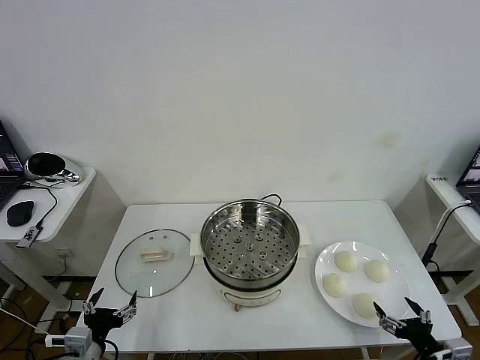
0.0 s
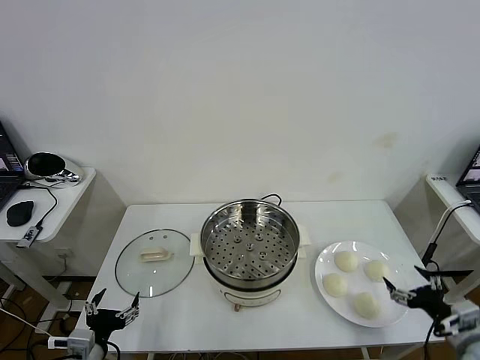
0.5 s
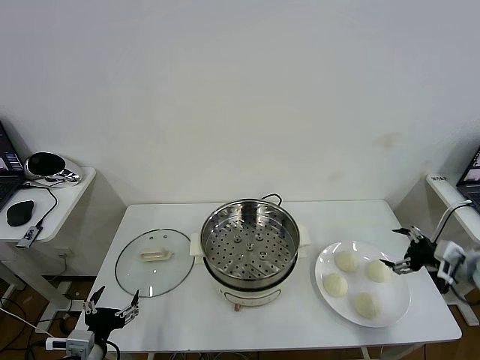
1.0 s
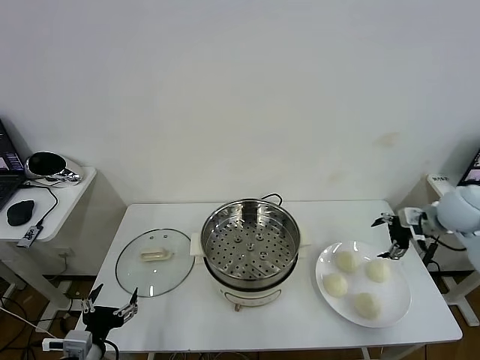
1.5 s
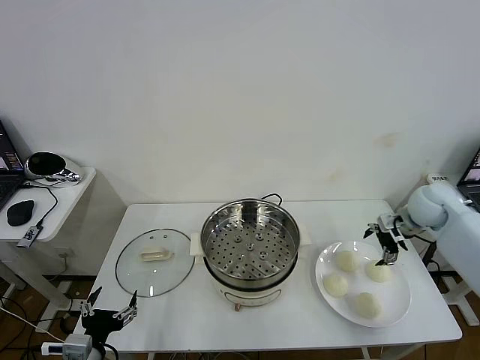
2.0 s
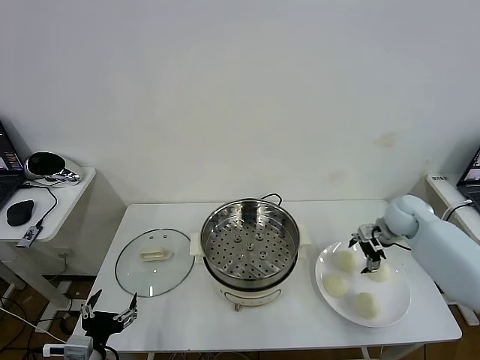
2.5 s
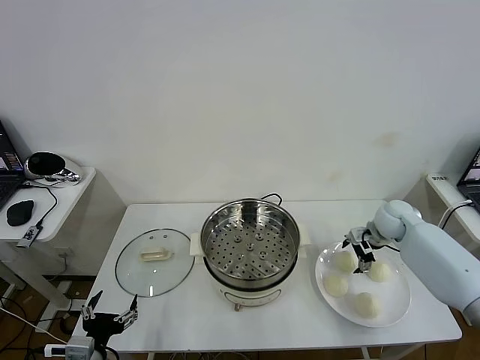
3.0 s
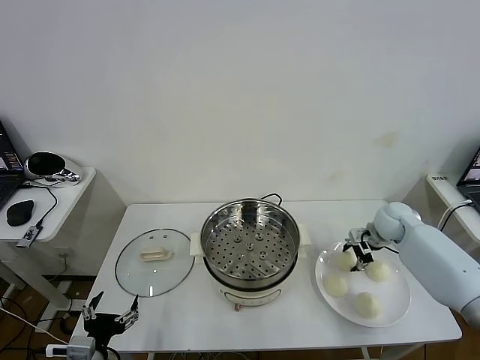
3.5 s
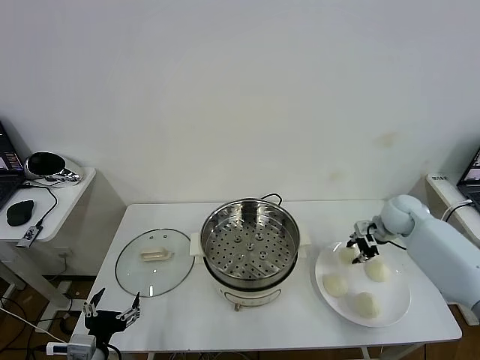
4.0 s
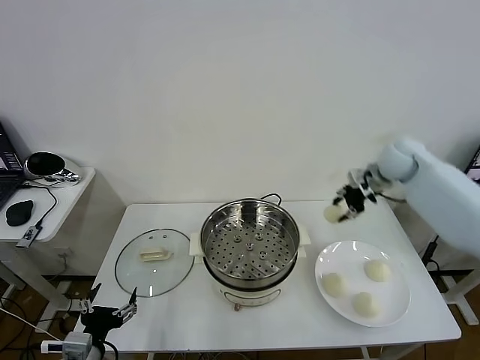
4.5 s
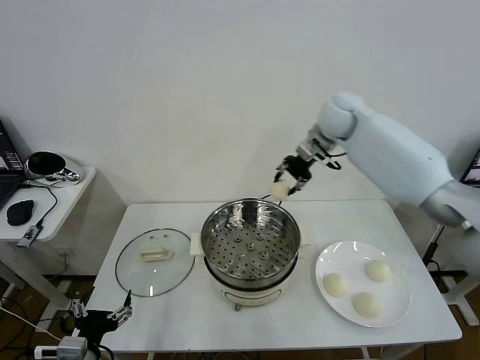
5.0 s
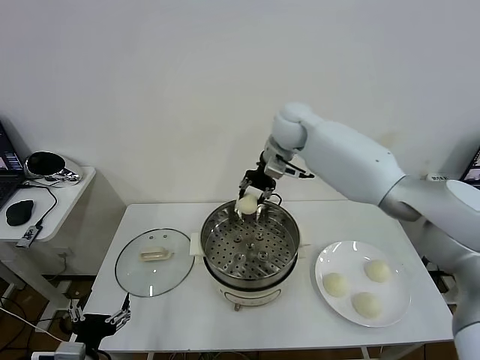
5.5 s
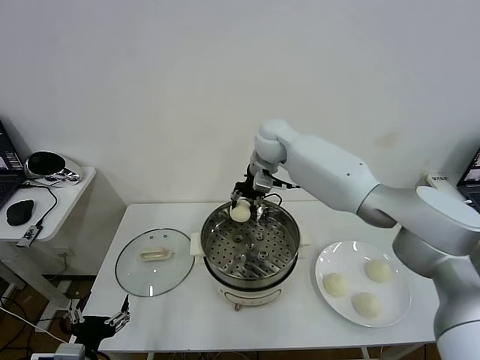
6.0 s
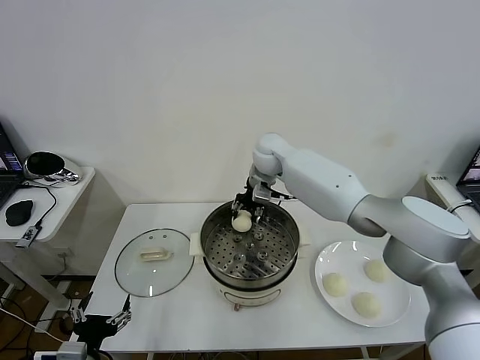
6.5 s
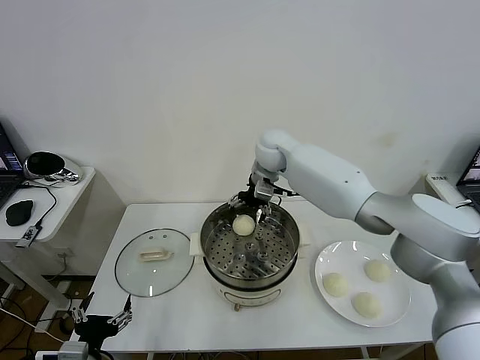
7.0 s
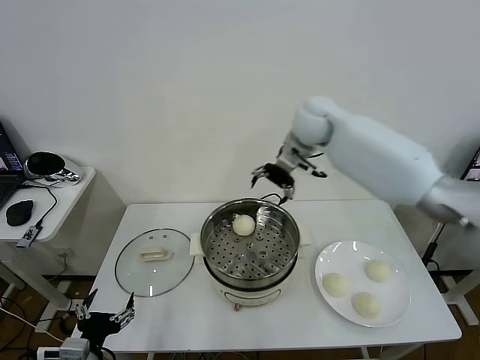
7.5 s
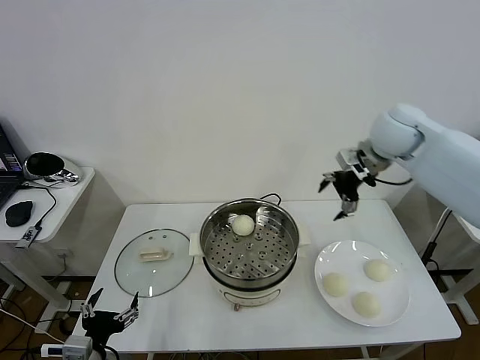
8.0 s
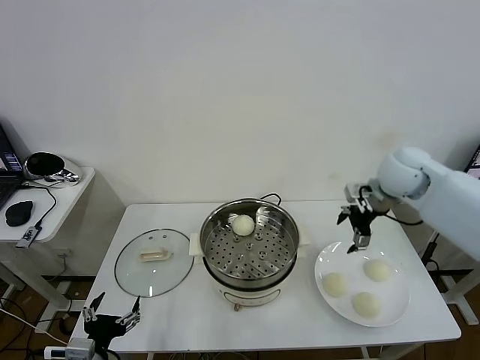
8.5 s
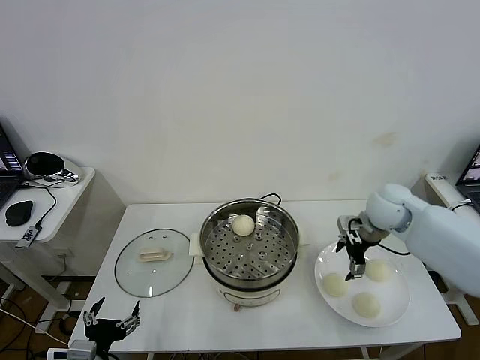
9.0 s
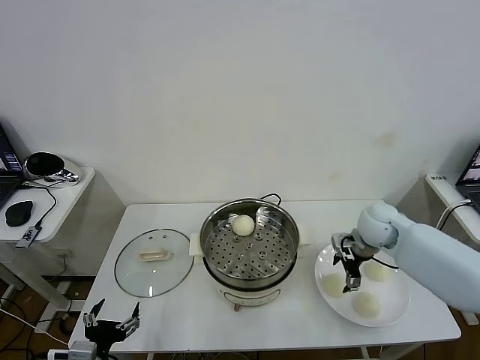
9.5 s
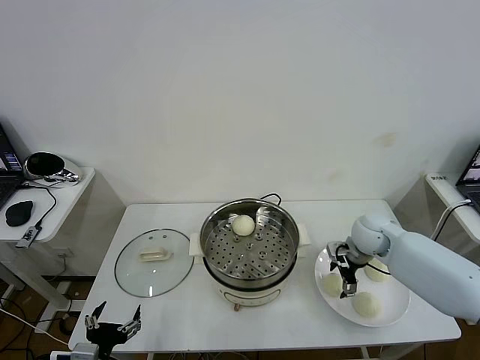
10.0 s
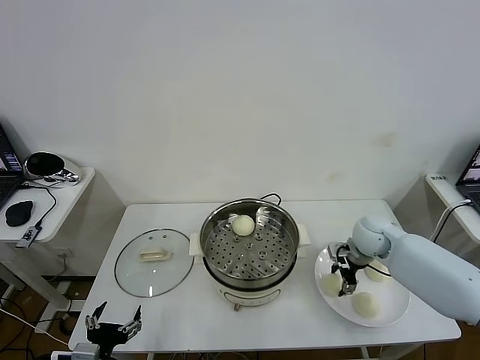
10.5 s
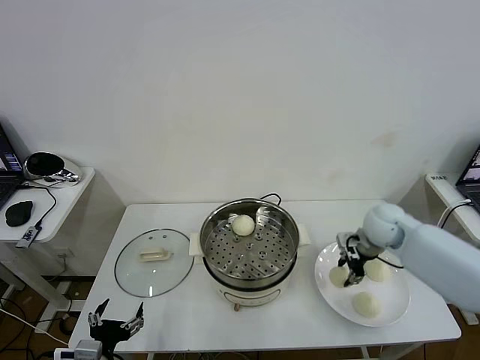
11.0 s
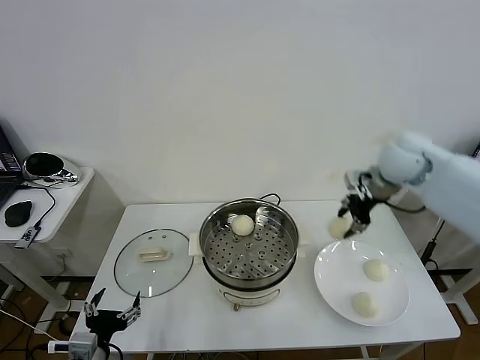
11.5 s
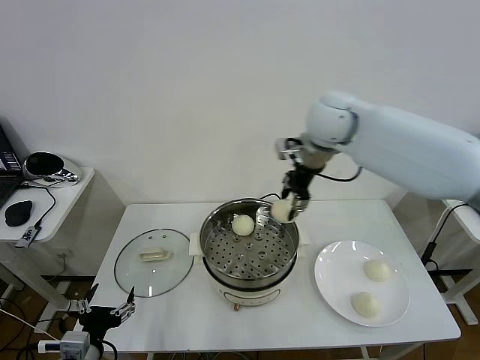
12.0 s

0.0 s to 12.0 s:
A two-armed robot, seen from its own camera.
Task of the whole recording: take steamed baozi put them in steamer then cover it.
Step, 0.0 to 3.5 s: Grasp the baozi in the plate with right gripper.
Step, 4.0 to 6.5 s: Place the baozi on the steamer with right gripper.
2.0 to 4.0 s: The right gripper closes its fingers.
4.0 to 6.0 s: The right gripper travels to the left by roughly 35 cm.
6.0 to 8.0 s: The right gripper shifts about 25 cm to the right, and opens.
8.0 to 10.0 s: The right gripper shifts about 25 cm downward.
10.0 to 12.0 s: The right gripper travels upward and to the left by some 30 cm, and closes its fingers.

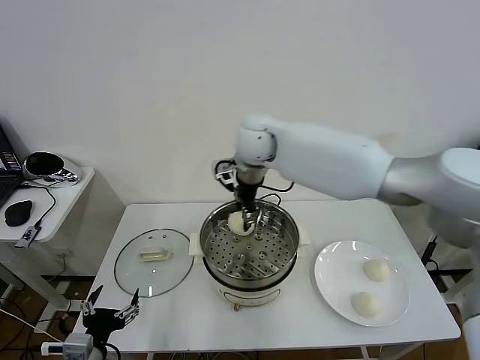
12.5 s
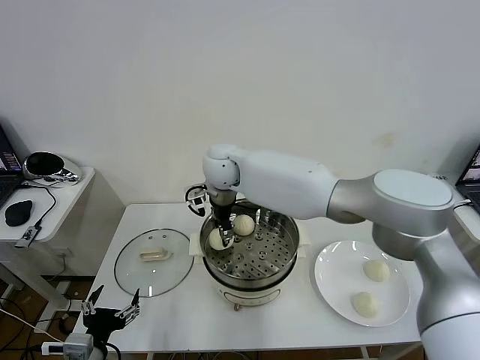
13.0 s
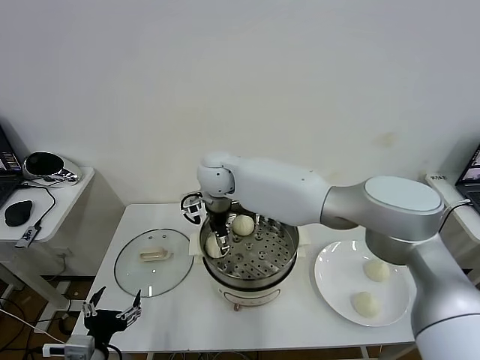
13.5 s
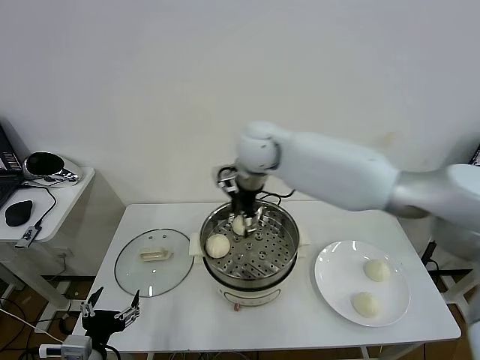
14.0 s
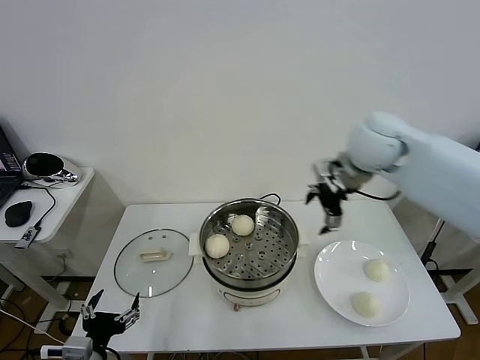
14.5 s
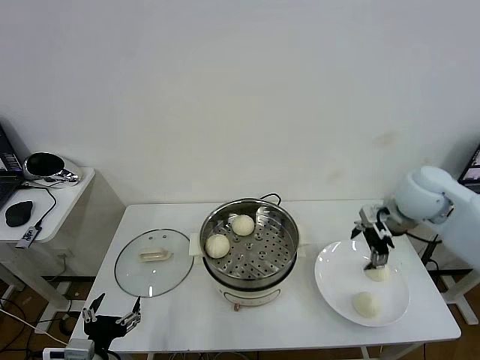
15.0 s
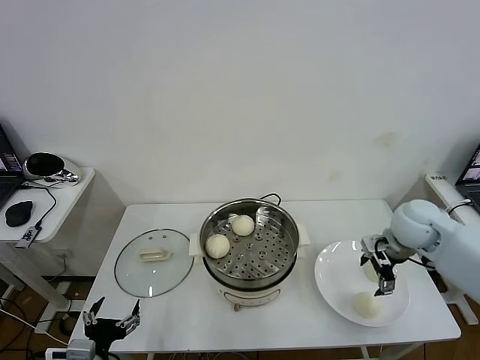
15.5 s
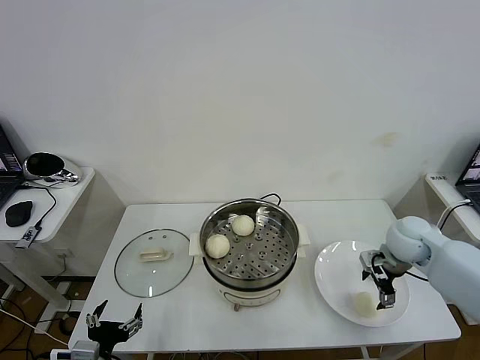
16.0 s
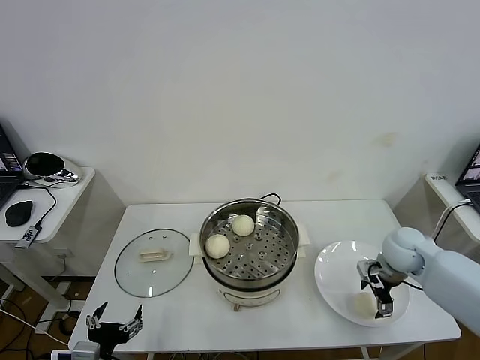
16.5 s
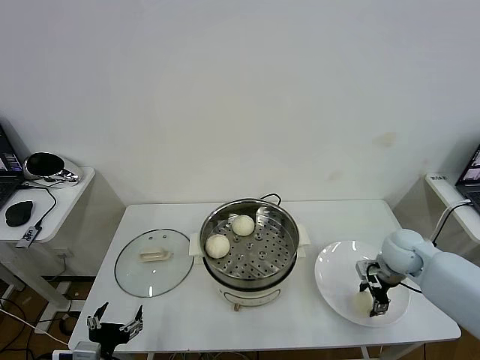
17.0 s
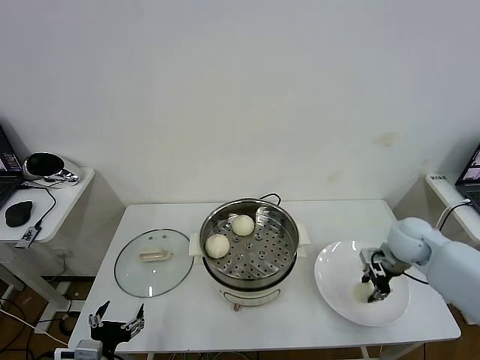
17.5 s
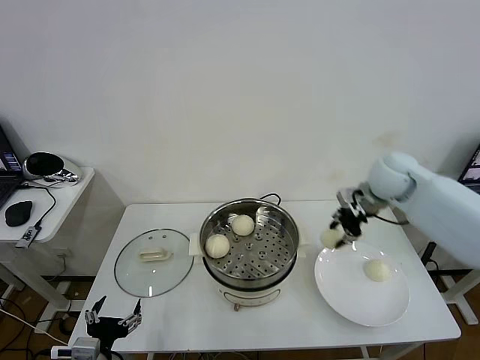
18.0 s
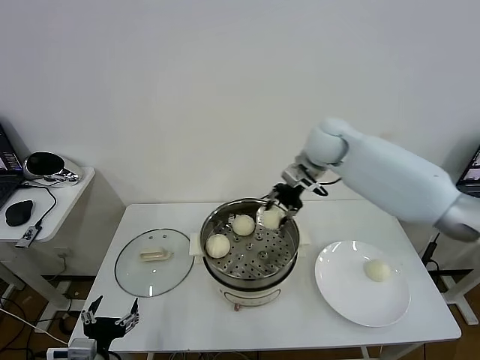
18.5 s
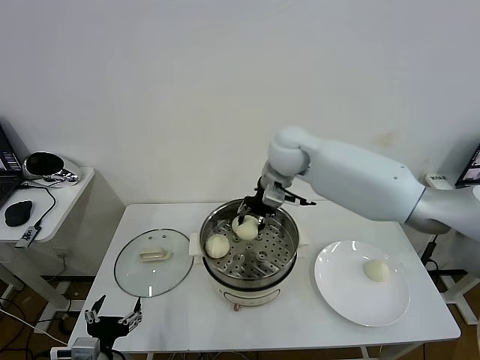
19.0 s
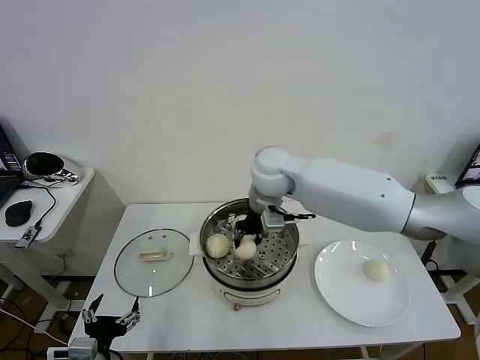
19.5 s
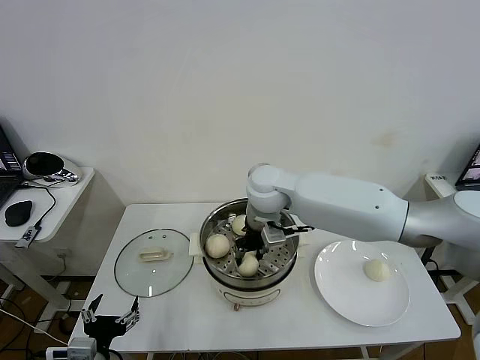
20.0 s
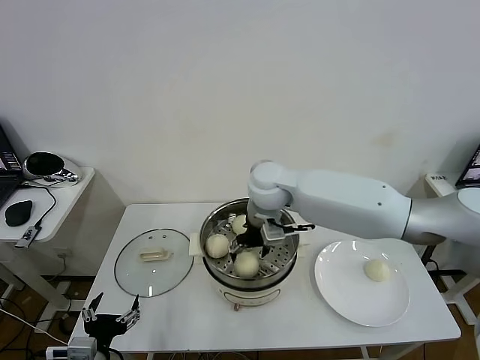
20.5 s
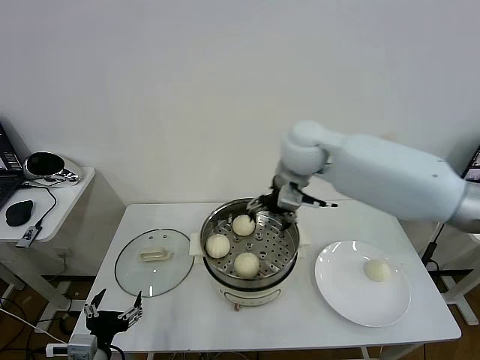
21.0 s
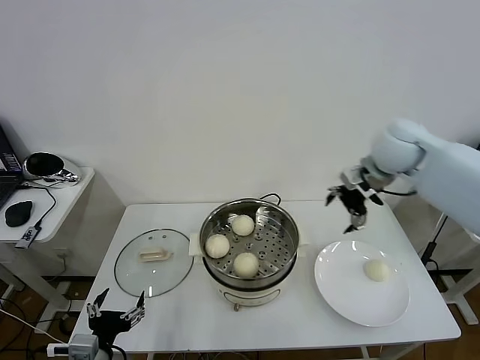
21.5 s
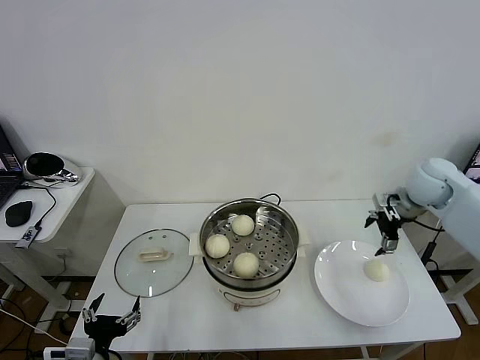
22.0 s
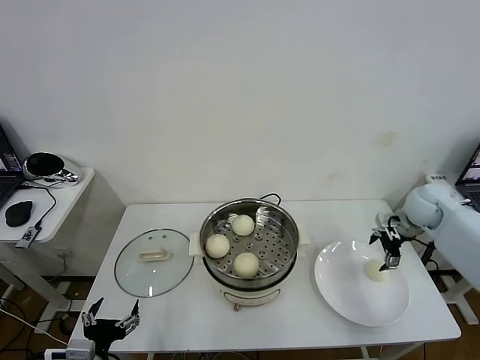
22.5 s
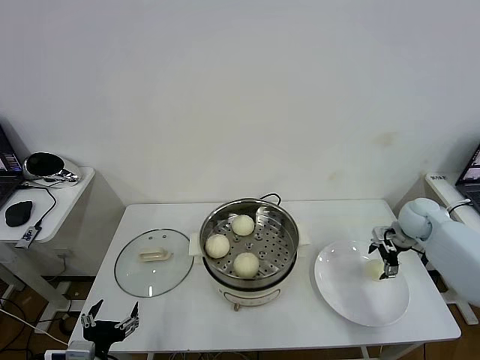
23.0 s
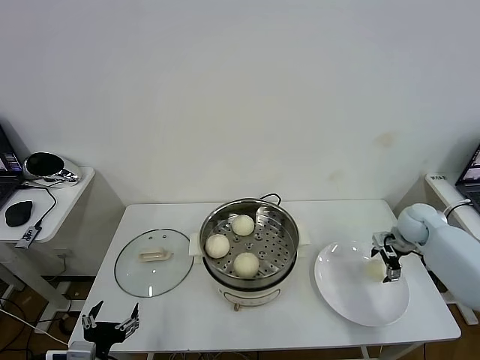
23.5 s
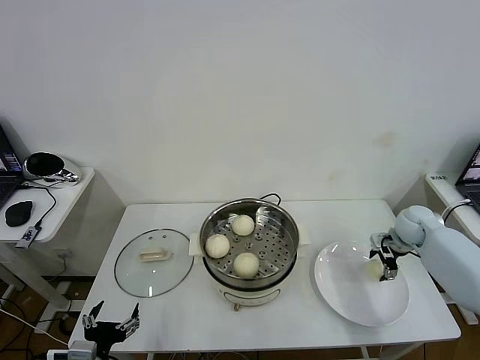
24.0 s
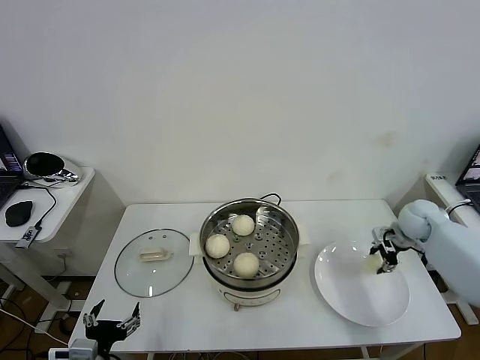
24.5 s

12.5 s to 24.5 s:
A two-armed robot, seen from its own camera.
Task of the whole recording: take steamed baozi put them in steamer then cover it.
Step, 14.0 to 17.0 s: Grasp the baozi in the plate with right gripper.
Step, 17.5 to 20.5 s: Place the baozi on the steamer with right gripper.
Step, 21.0 to 24.0 s: Grasp the baozi in the plate with right gripper.
12.5 to 14.5 s: The right gripper goes approximately 25 cm to the right, and opens up.
14.5 to 16.5 s: The right gripper travels downward and to the right by roughly 25 cm.
16.5 to 18.5 s: The right gripper is displaced to the left, upward and forward by approximately 30 cm, and closes up.
18.5 to 20.5 s: The right gripper shifts approximately 15 cm to the left, backward and downward, and opens up.
20.5 to 22.5 s: The right gripper travels to the right by approximately 40 cm.
22.5 to 24.5 s: The right gripper closes its fingers.

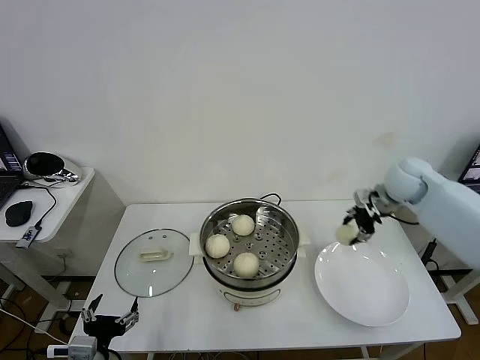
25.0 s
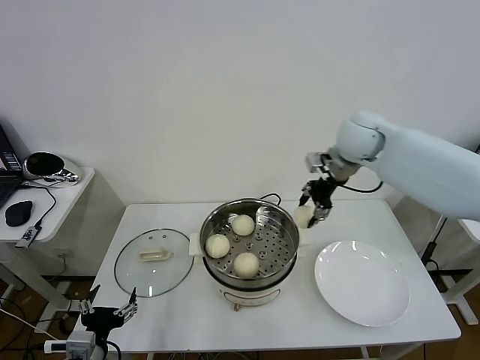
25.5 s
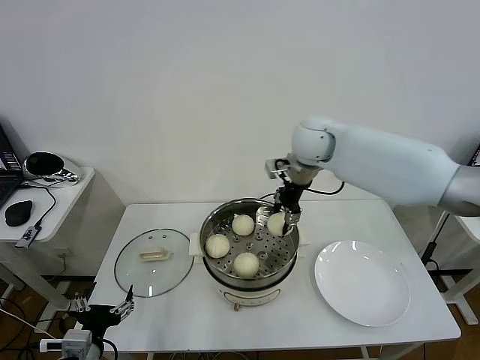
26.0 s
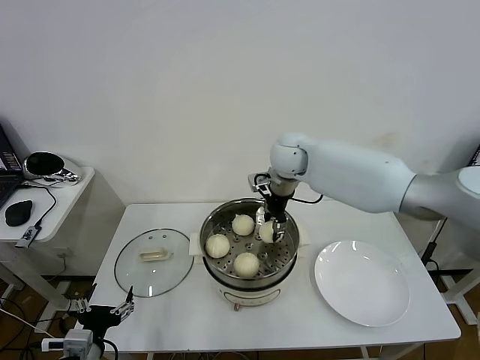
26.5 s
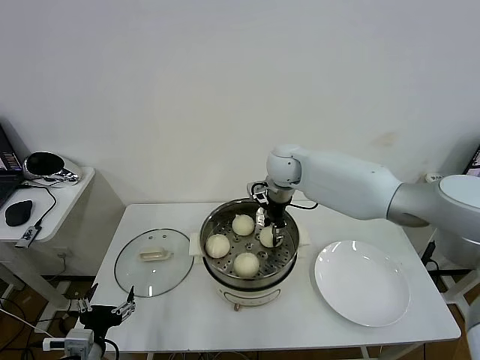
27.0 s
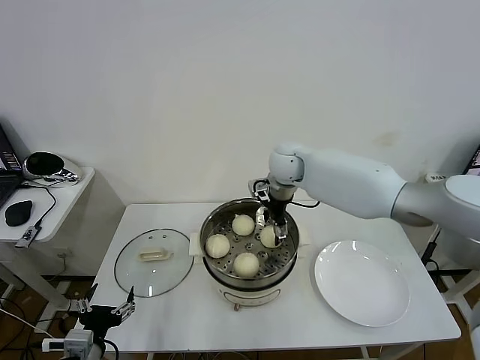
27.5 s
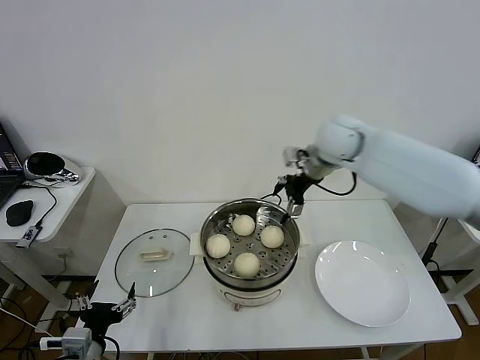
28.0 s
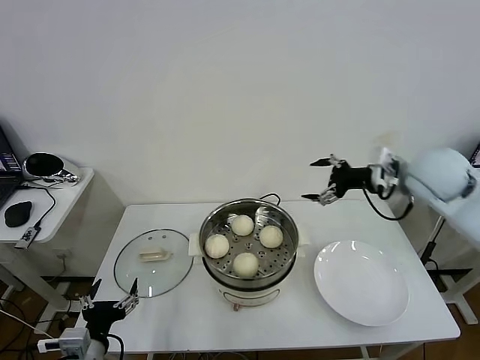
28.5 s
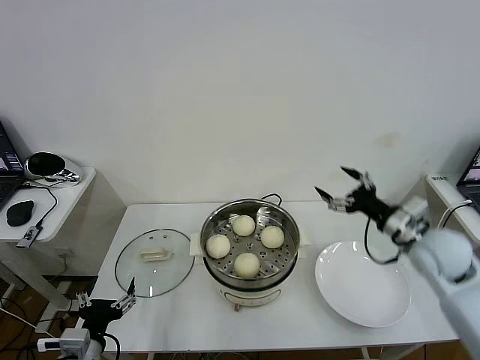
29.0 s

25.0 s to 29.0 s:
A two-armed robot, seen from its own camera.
Task of the whole recording: take steamed baozi put them in steamer then cover it.
Step, 25.0 to 27.5 s: Place the baozi on the steamer with right gripper.
25.0 to 27.0 s: The right gripper shifts some 25 cm to the left.
27.0 to 29.0 s: The right gripper goes about 35 cm to the right and backward, and opens up.
